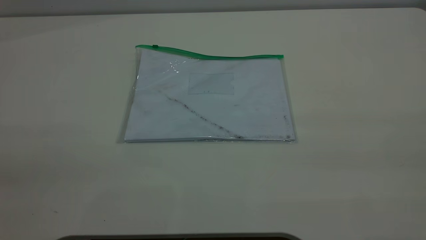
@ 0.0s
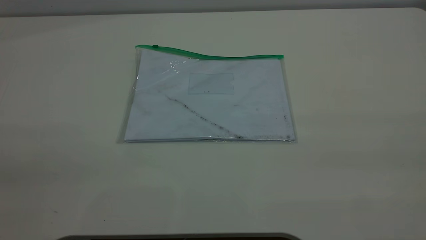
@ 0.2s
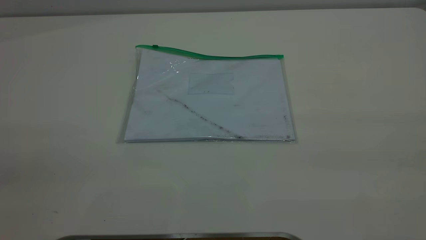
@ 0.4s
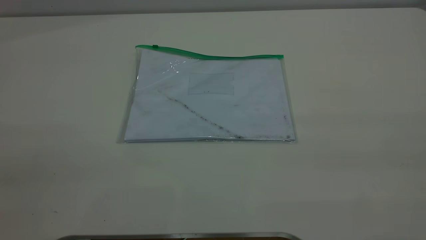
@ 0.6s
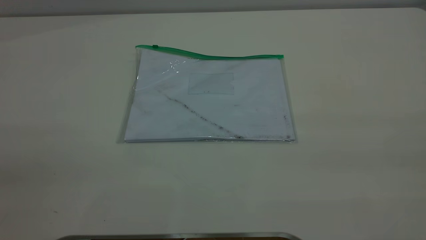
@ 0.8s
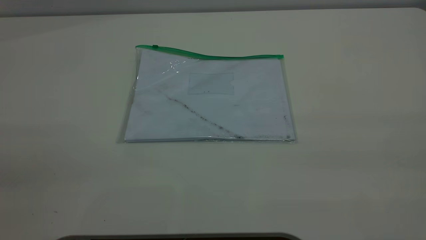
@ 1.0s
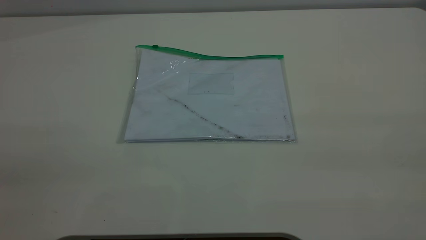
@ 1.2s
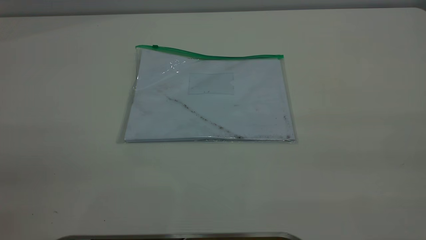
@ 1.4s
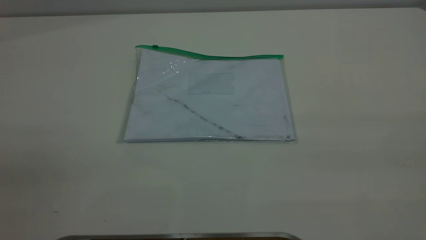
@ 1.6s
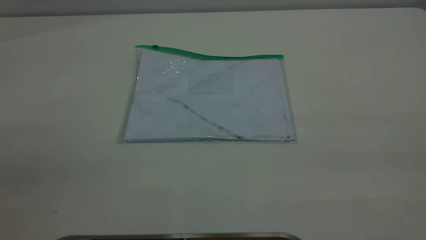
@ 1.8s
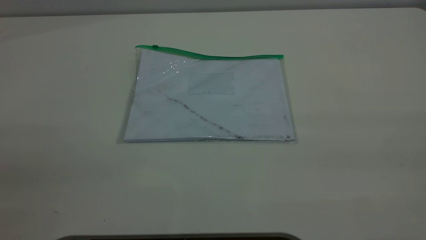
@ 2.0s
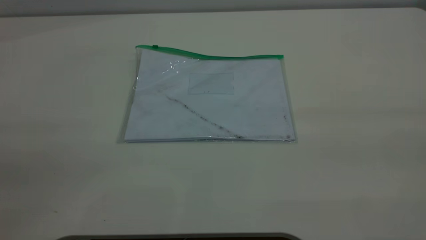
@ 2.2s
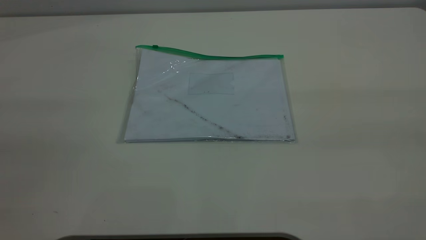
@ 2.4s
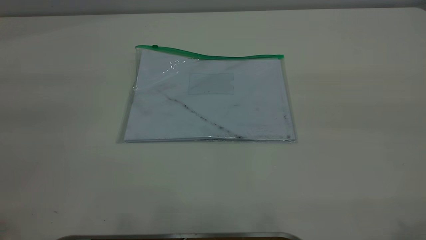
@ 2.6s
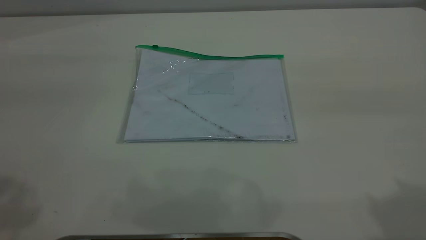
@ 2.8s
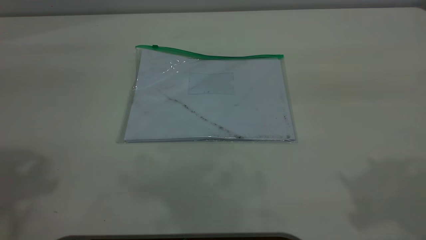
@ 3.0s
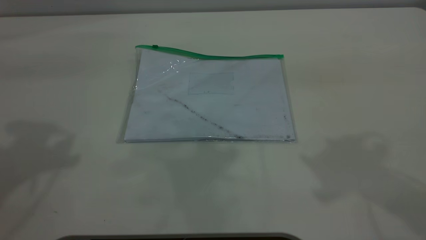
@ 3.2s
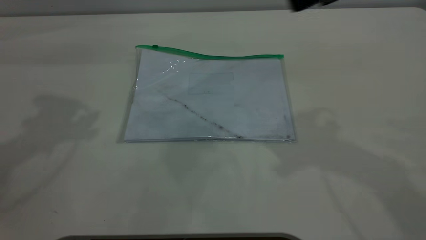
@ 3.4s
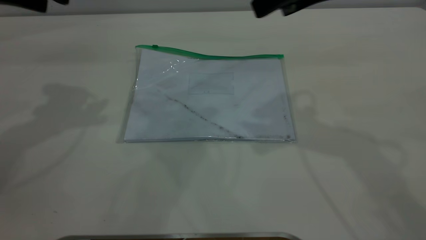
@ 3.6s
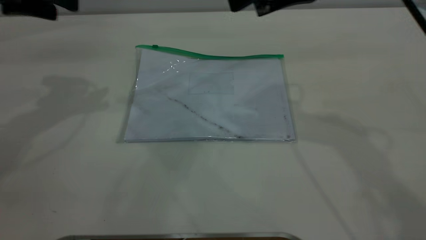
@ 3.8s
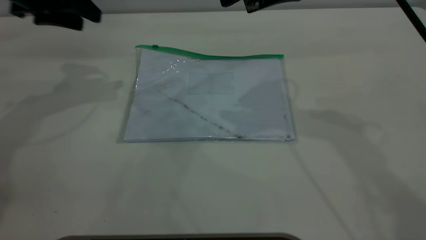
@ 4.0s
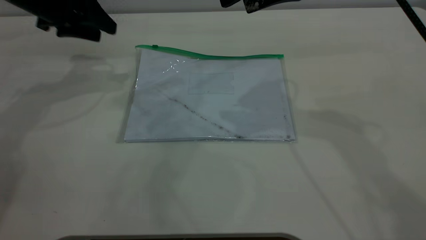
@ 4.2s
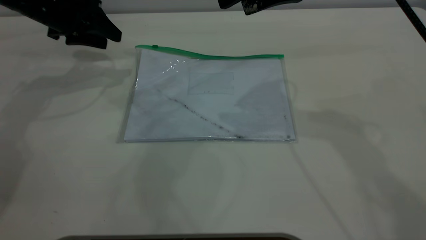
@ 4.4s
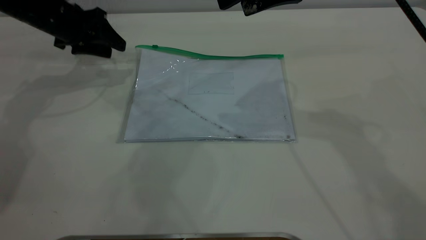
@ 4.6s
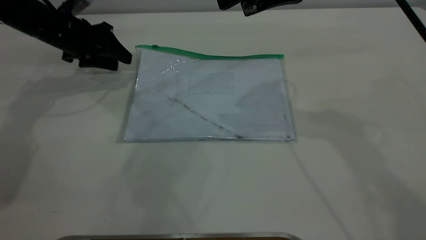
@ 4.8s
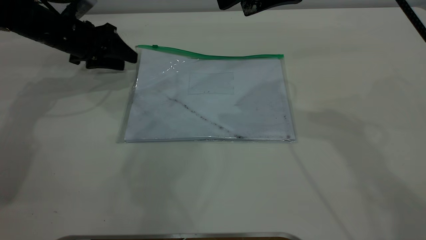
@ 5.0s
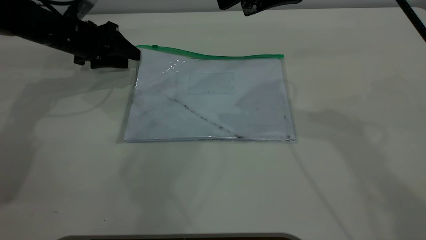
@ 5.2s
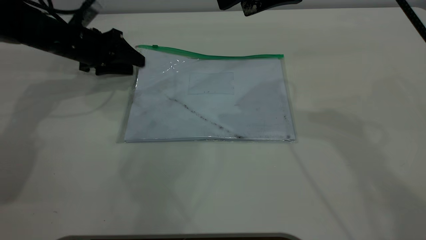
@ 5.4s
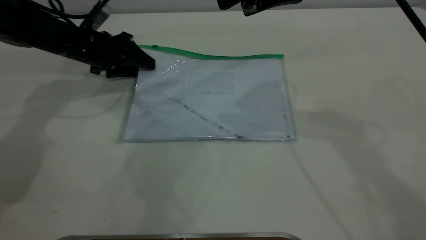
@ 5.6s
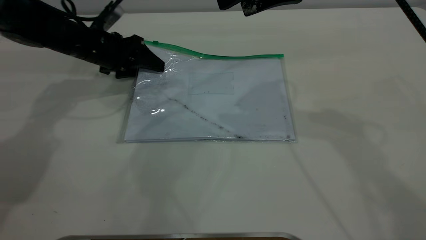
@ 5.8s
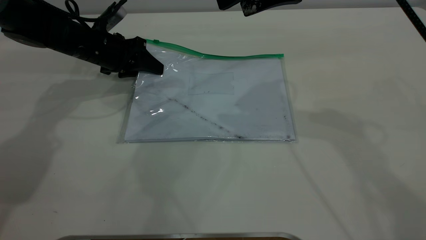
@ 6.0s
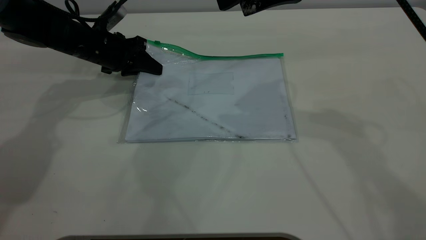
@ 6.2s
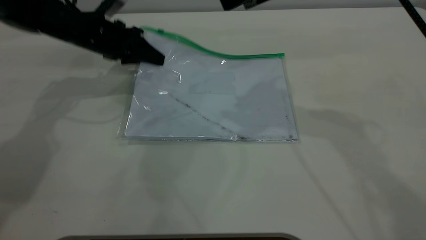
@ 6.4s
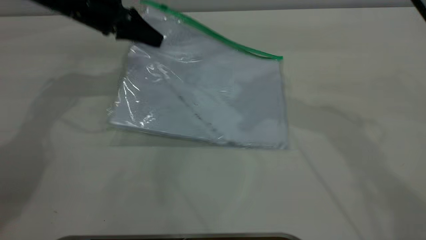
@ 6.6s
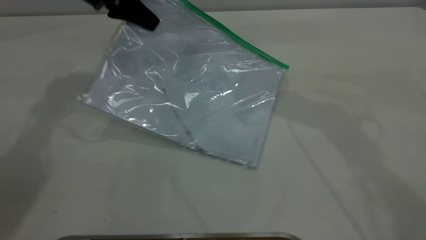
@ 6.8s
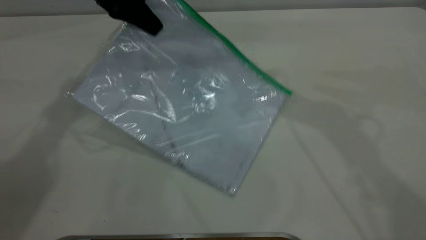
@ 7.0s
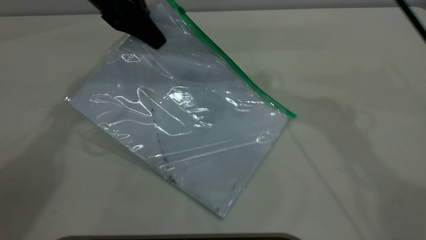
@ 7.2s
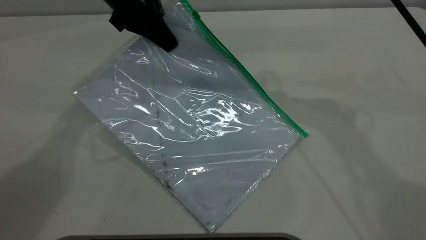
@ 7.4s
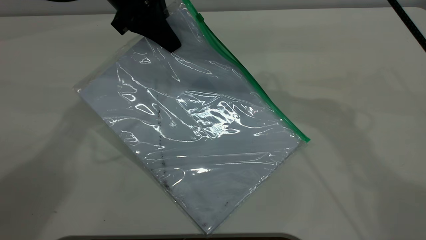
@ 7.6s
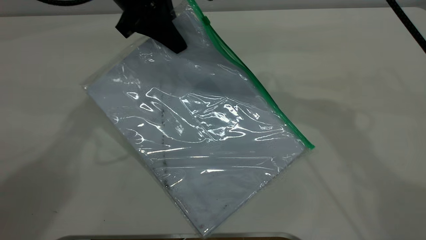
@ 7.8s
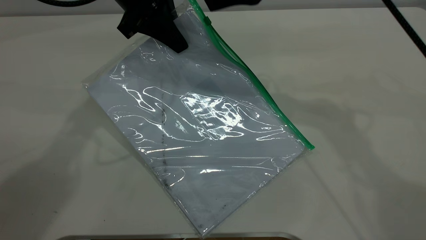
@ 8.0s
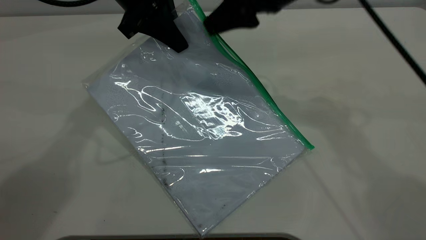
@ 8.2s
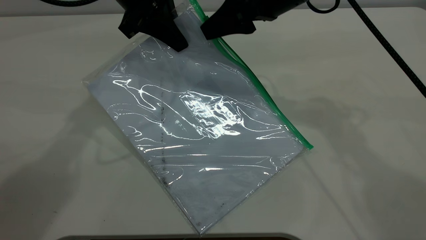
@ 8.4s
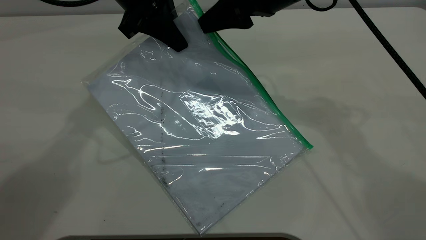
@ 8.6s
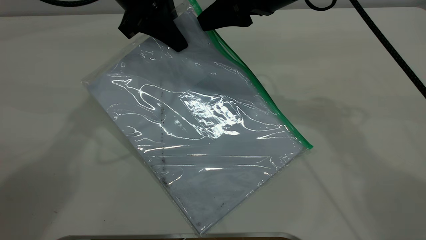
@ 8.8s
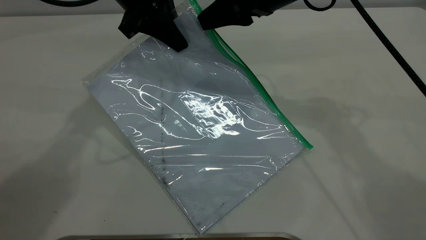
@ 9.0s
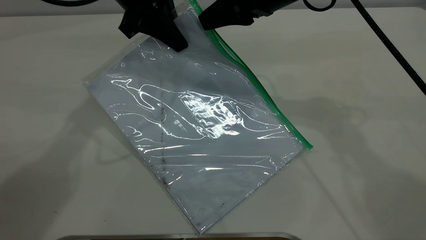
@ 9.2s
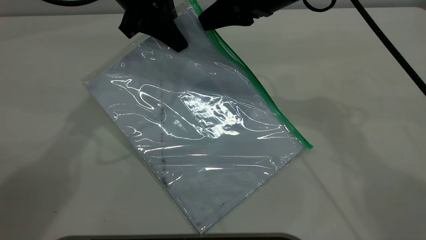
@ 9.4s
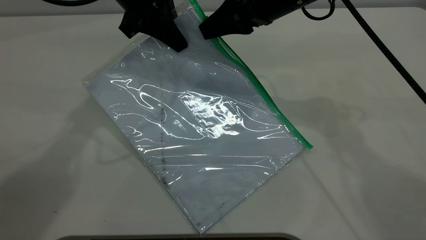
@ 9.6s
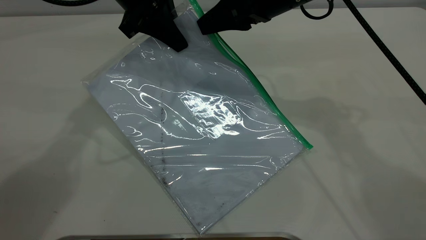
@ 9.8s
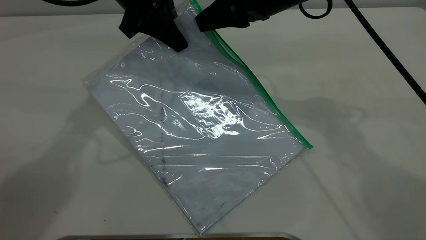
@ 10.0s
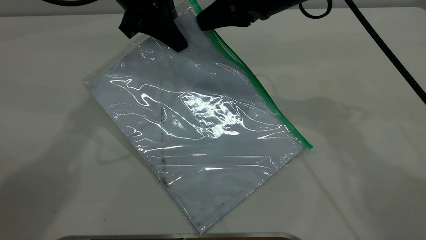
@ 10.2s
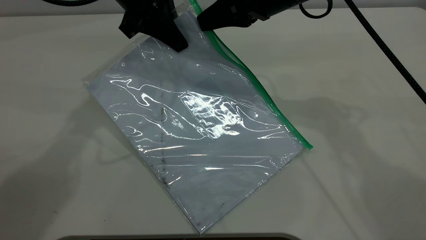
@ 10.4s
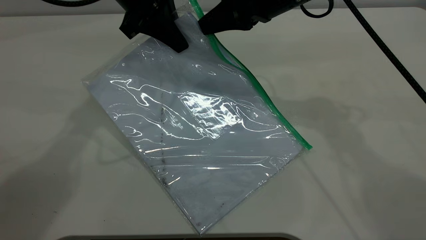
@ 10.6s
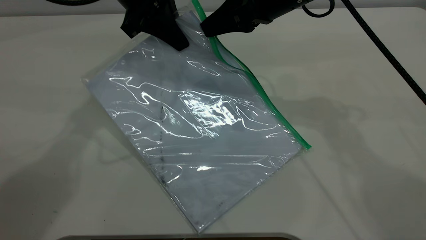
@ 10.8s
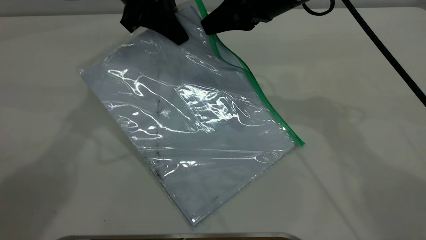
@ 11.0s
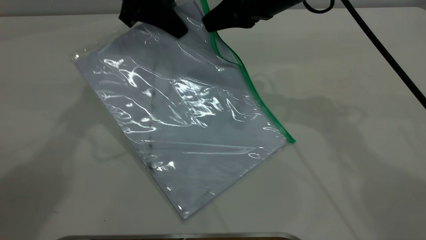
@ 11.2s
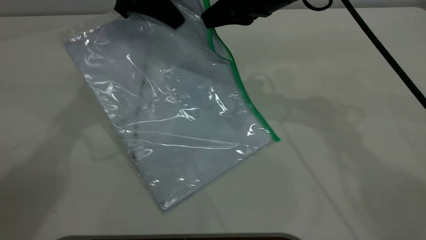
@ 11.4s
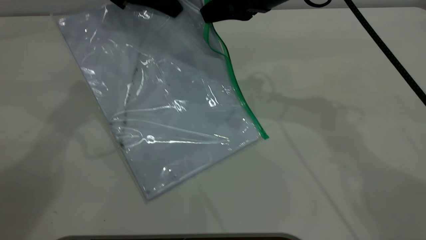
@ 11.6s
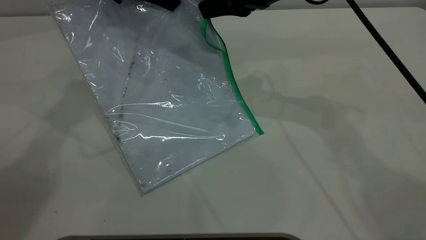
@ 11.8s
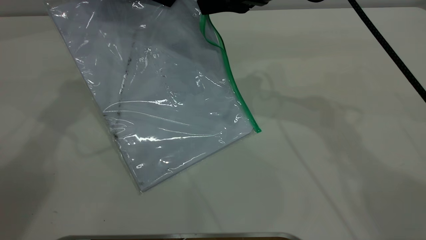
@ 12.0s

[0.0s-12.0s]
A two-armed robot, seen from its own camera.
Step, 0.0s to 6.4s: Pick up the transparent plastic bag with the left gripper.
0.0s to 1.6s: Neither gripper changes place.
3.0s to 4.4s: The right gripper moves forward, to the left and downward, about 20 cm. Meanwhile the left gripper shifts approximately 35 cm forward and downward.
4.4s to 6.0s: The left gripper moves downward and to the right, about 10 cm, and closes.
6.0s to 7.6s: The left gripper travels upward and to the right by about 20 cm, and closes its fingers.
7.6s to 9.0s: The right gripper closes up.
9.0s to 10.4s: The right gripper closes.
10.4s to 12.0s: The left gripper shifts by about 5 cm.

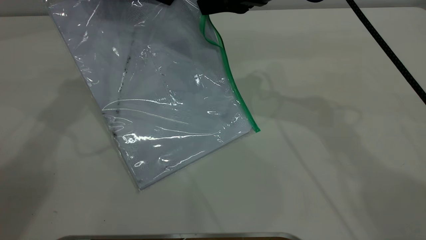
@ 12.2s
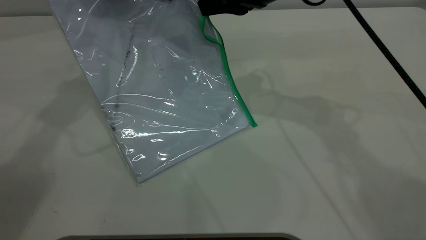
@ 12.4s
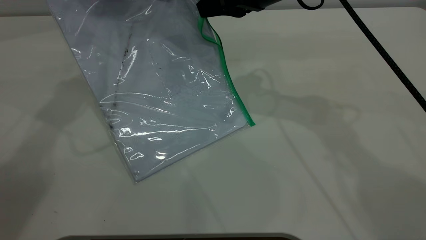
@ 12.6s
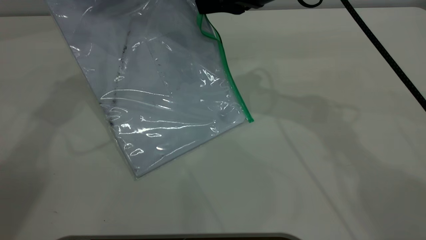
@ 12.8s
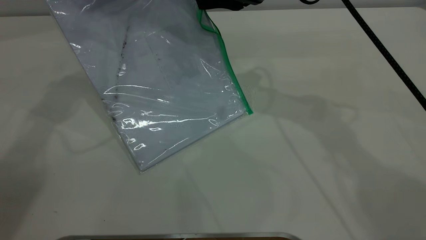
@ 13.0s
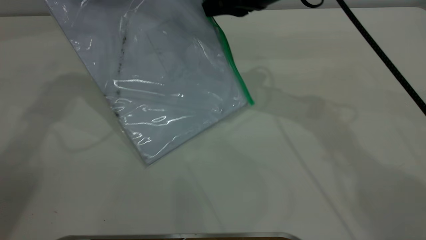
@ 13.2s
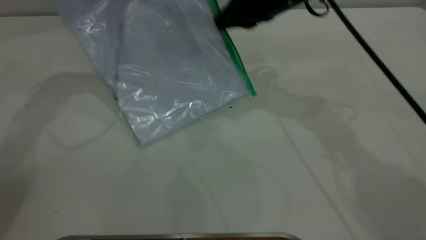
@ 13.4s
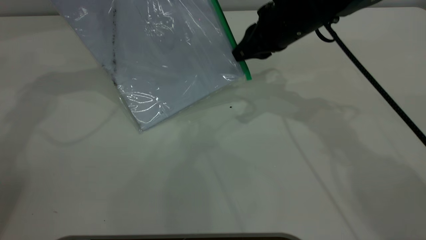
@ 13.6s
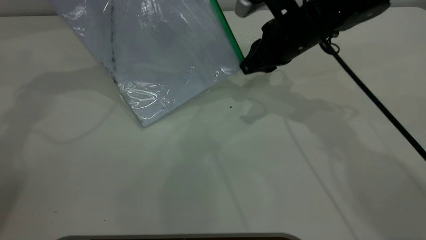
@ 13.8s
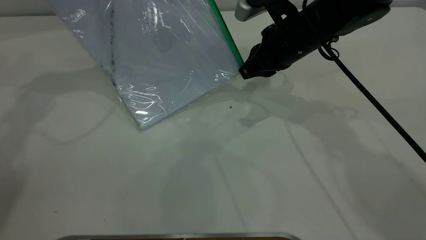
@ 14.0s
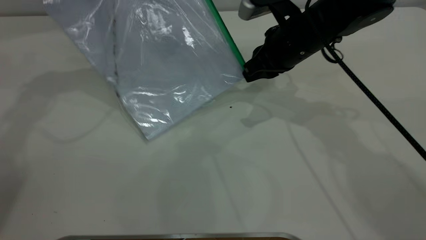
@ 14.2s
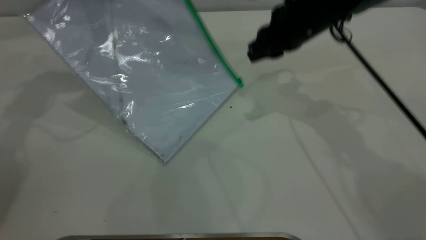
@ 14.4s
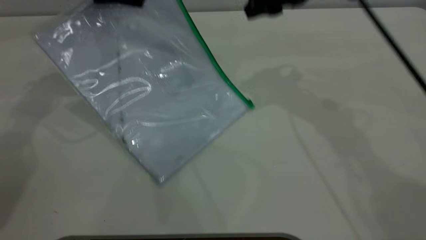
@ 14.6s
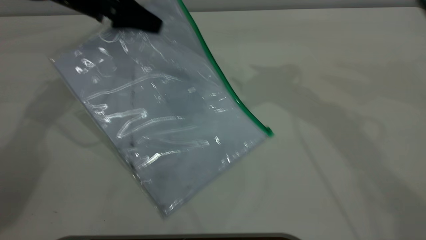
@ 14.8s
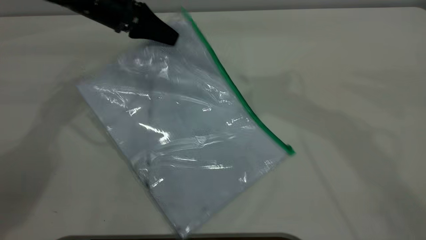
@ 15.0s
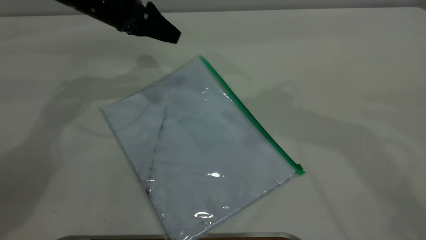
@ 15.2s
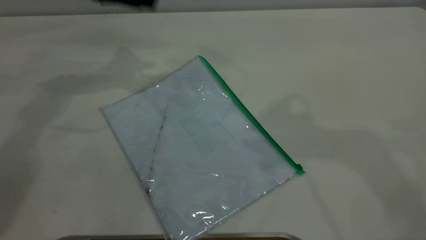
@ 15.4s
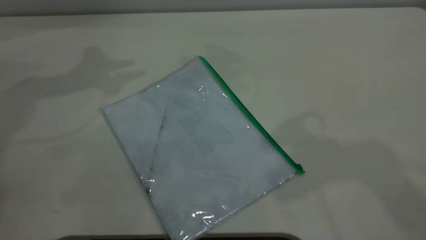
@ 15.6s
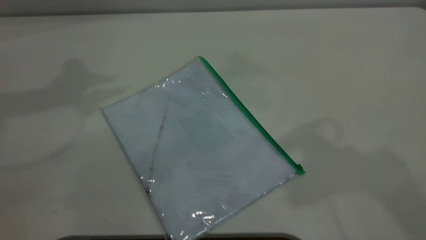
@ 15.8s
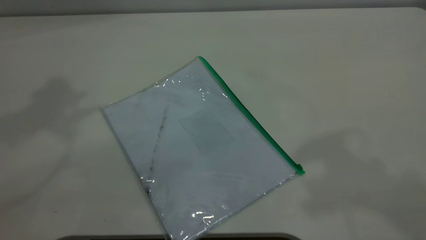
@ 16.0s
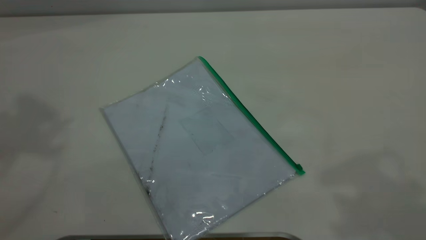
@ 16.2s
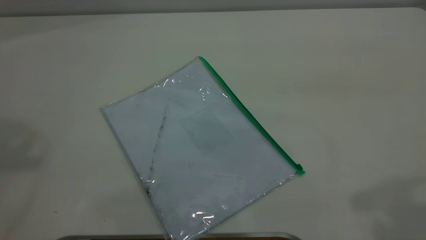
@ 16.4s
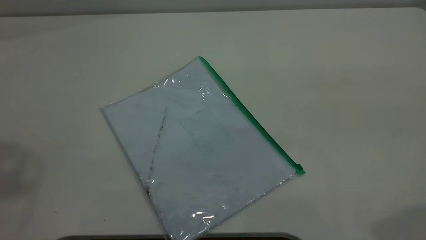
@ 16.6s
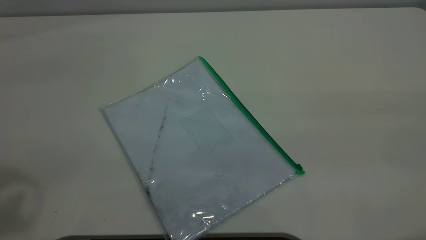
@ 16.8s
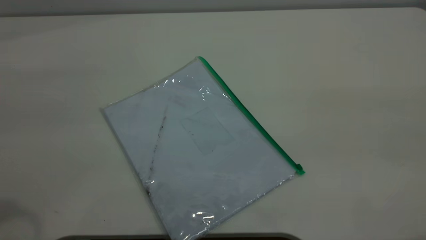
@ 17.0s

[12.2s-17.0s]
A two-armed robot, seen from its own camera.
Step, 12.2s to 14.4s: Pulling up the zipper on the transparent plastic bag with the right gripper to close it.
Step, 14.6s to 15.2s: Place the transparent plastic bag.
12.2s to 13.8s: The left gripper heads to the left, covering approximately 5 cm, while the right gripper shifts some 10 cm downward.
13.8s to 15.4s: The left gripper goes roughly 5 cm downward, and opens, while the right gripper moves upward, some 25 cm, and opens its fingers.
15.4s to 17.0s: The left gripper shifts roughly 35 cm backward and upward; the right gripper travels backward and to the right by some 25 cm.
